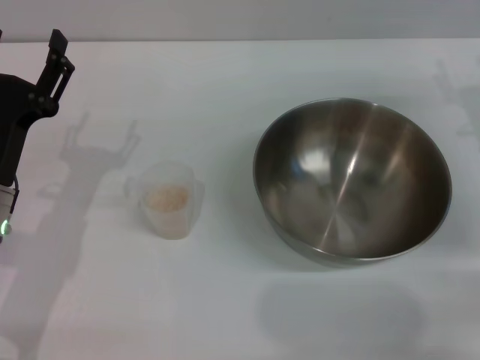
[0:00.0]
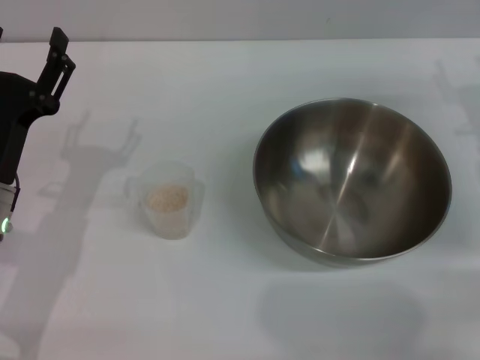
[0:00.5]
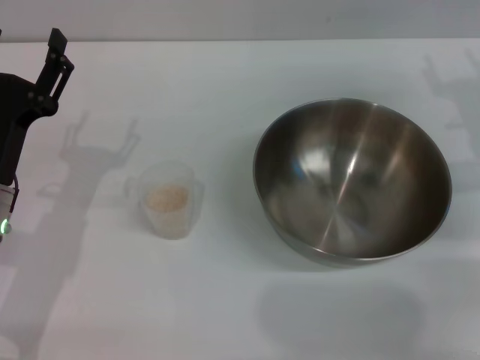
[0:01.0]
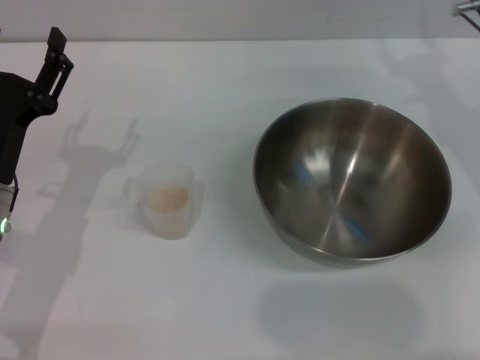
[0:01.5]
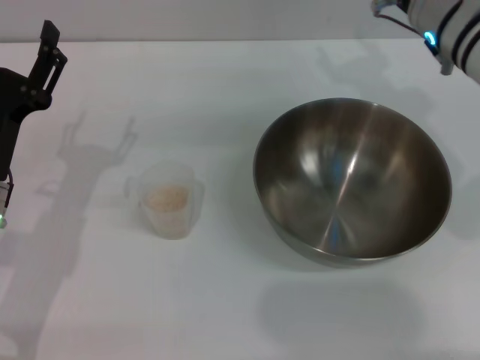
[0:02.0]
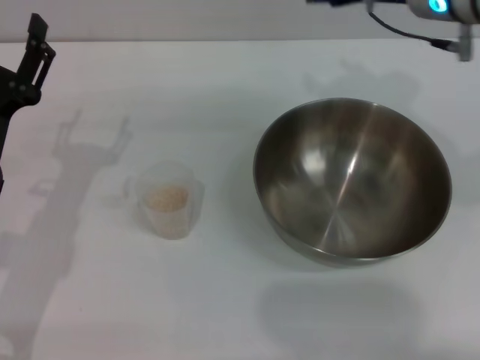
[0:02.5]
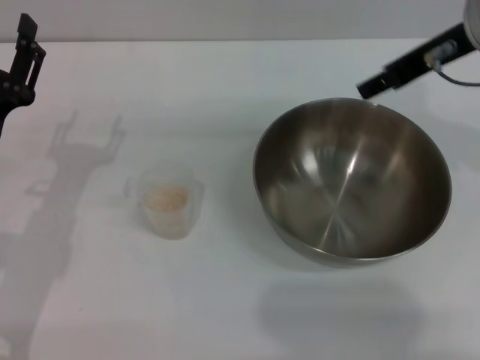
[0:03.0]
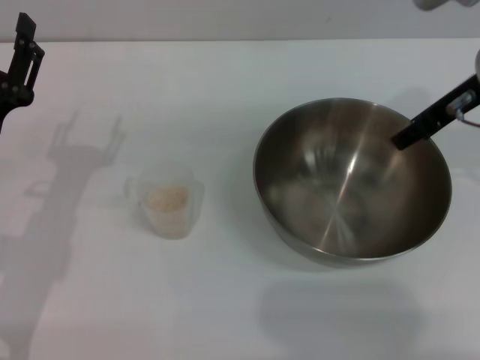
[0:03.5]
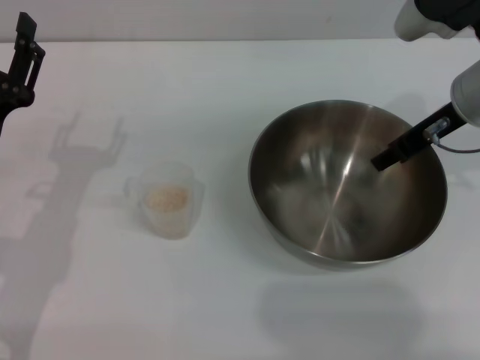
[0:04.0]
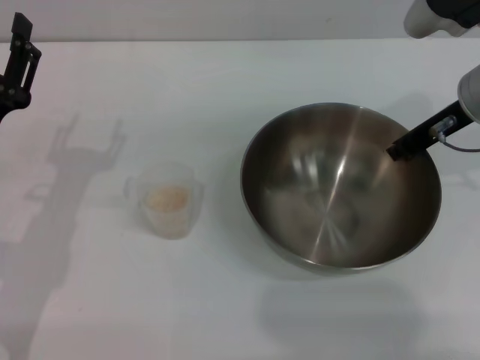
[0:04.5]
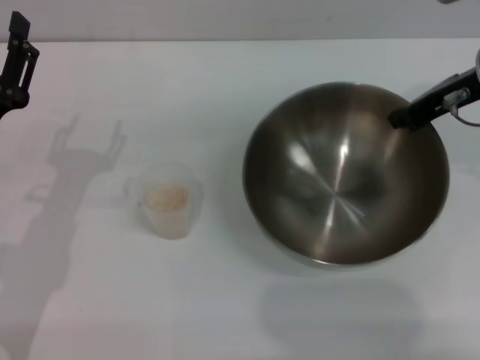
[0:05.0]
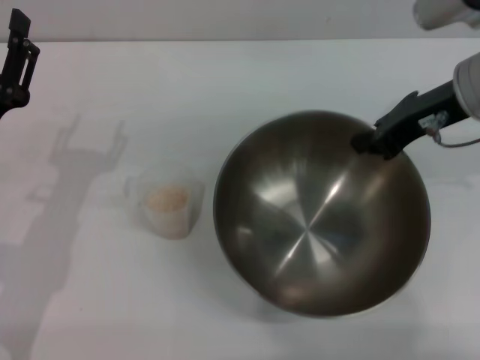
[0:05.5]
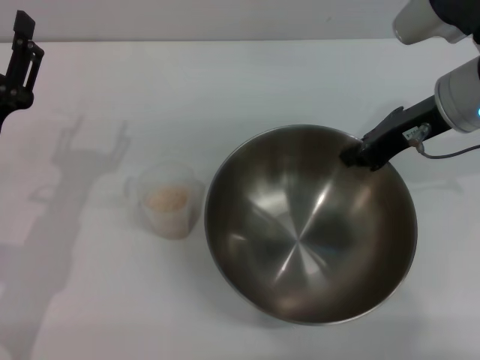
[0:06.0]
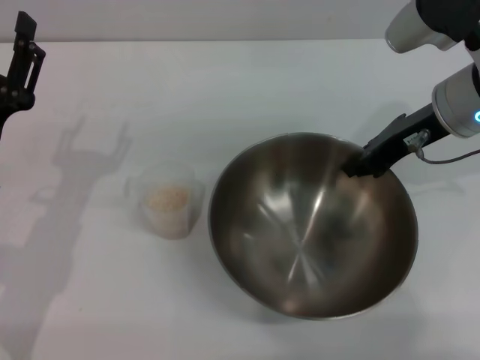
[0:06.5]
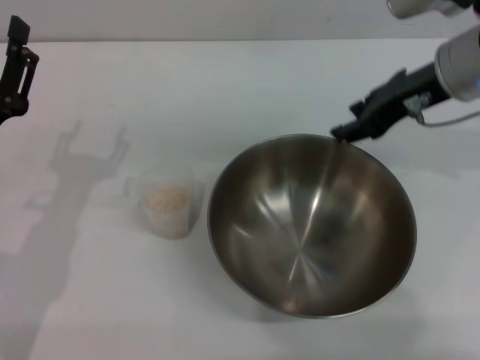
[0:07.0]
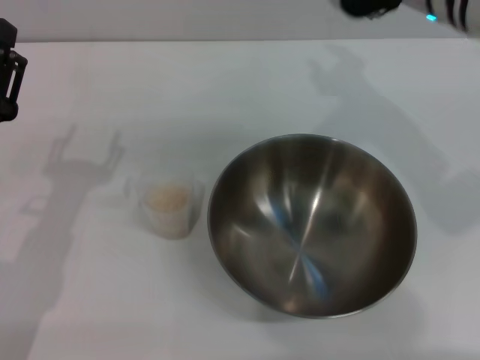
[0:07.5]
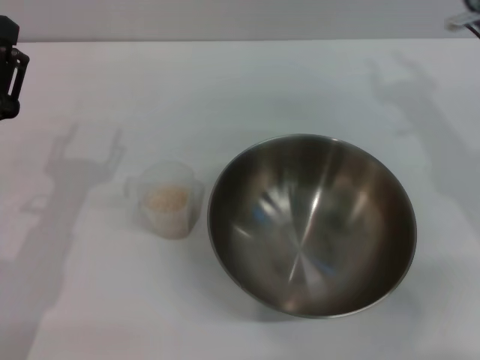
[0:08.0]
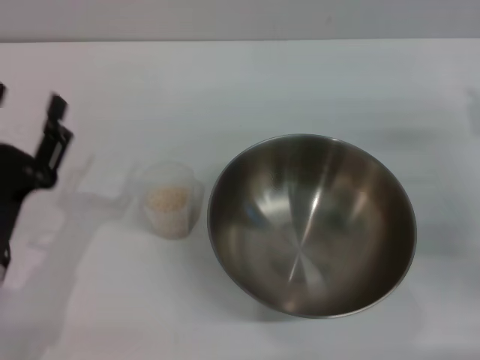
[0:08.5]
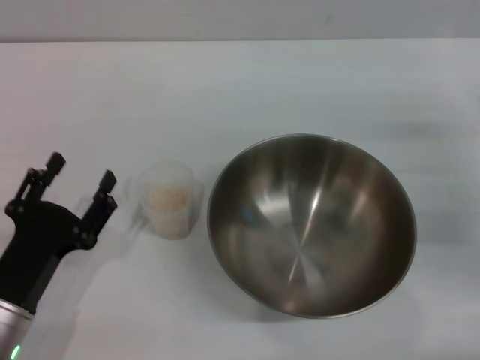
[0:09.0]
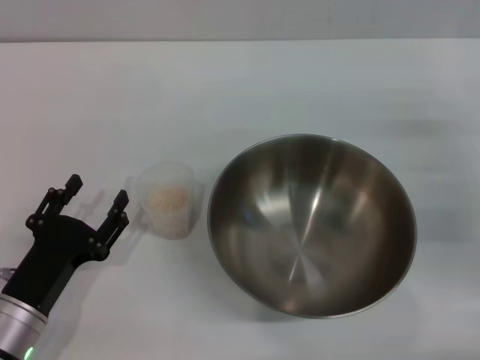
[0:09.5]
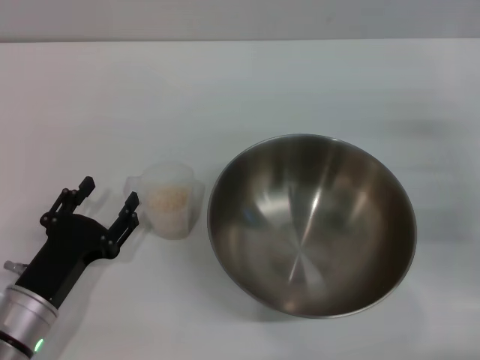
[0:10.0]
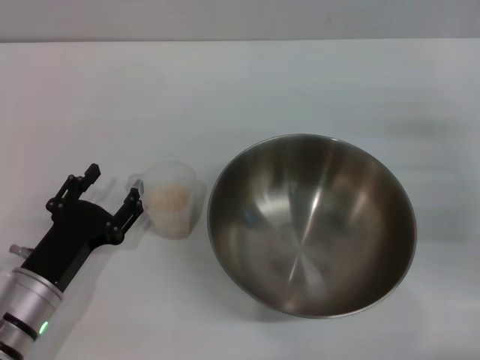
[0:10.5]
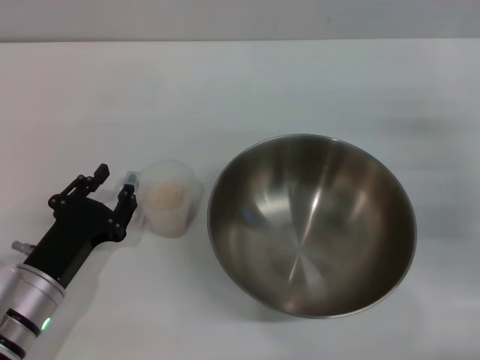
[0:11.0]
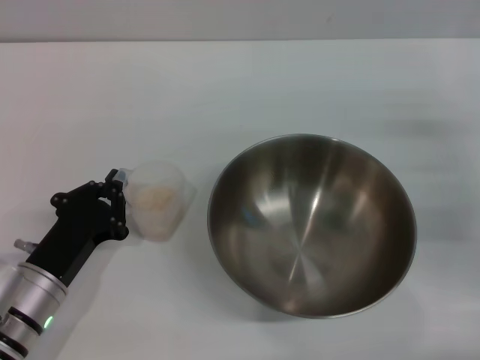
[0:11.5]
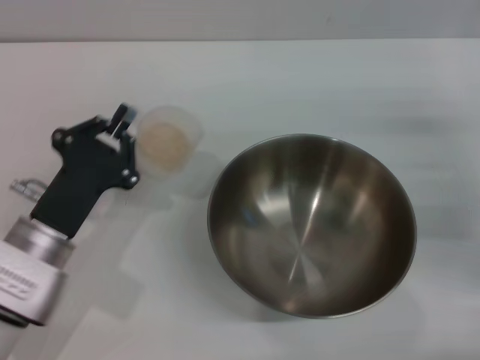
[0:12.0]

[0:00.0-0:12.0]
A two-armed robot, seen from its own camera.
Task of the whole recording: Place the bowl in the middle of the table with one hand and pour the rice from the grain cup into it with the other hand.
Step, 0:00.0 to 0:05.0: Pick up the bowl with the right gripper.
Step, 0:05.5 to 0:07.0: Place the bowl in the center of view with the right gripper.
Step, 0:07.5 to 0:11.5: Pick up the cup with rice in it with the left gripper.
0:00.0 to 0:02.0: The right gripper goes about 15 cm to the left, upward and forward.
0:02.0 to 0:04.0: The right gripper travels upward and back again, about 5 cm each way.
0:04.0 to 0:06.0: The right gripper closes its fingers.
0:06.0 to 0:08.0: The right gripper goes to the left and returns, some 5 cm each way, and opens.
0:08.0 to 0:10.0: The right gripper is displaced to the right and downward by approximately 10 cm. Meanwhile the left gripper moves downward and backward, some 10 cm.
0:10.0 to 0:12.0: The left gripper changes place by approximately 5 cm, and closes.

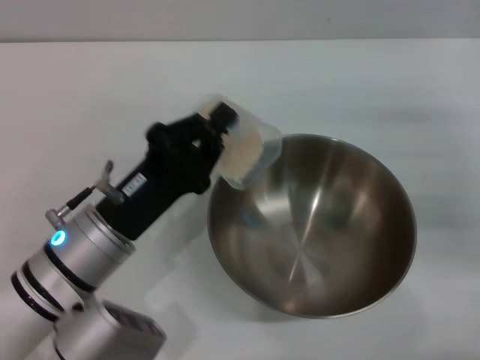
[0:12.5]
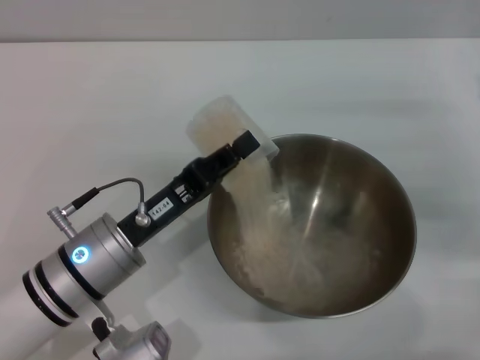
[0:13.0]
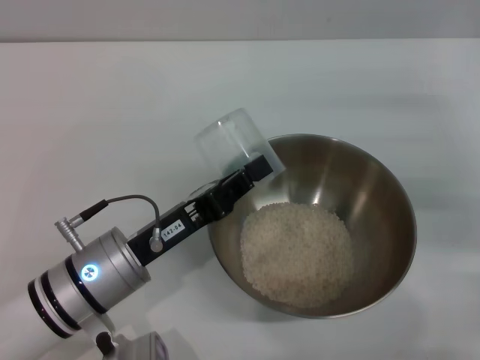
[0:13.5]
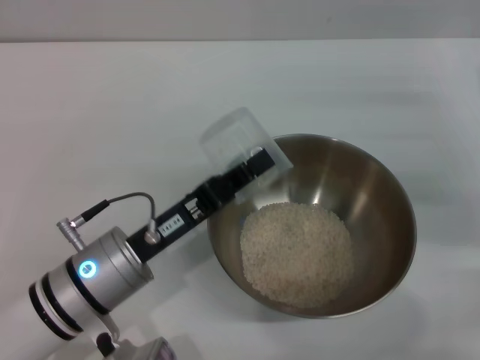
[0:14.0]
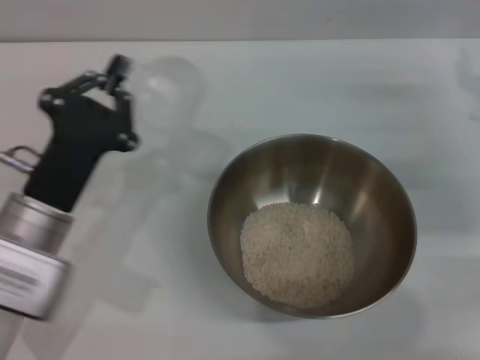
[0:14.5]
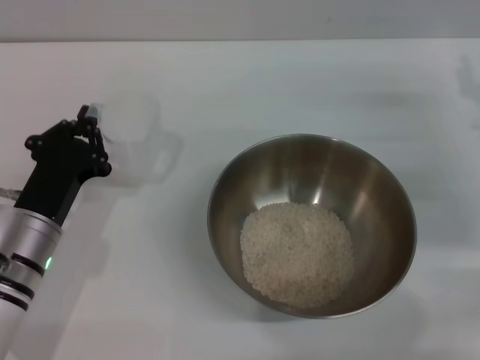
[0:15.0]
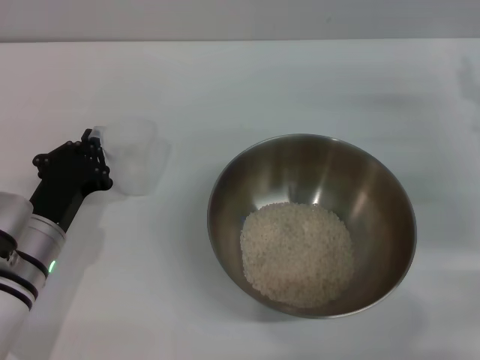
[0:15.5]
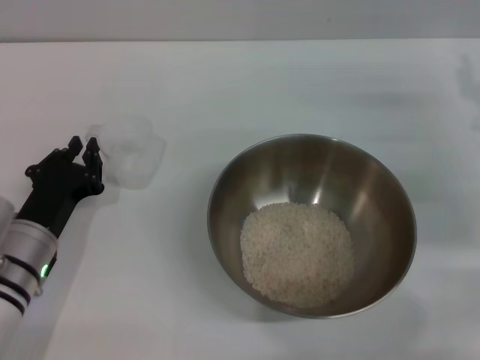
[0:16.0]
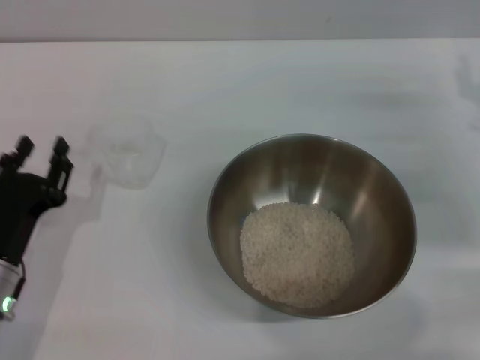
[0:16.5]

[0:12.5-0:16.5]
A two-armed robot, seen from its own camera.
Task of the whole recording: Place the bowl in the middle of the table with one hand and pour the rice from the grain cup into it with the other hand.
Step, 0:12.5 to 0:13.5: Pour the rice from the cup into the bowl with the left gripper.
Step, 0:14.0 to 0:16.0: Place the cup on the table with the left gripper.
0:14.5 to 0:16.5: The left gripper heads to the left and downward, covering some 5 cm.

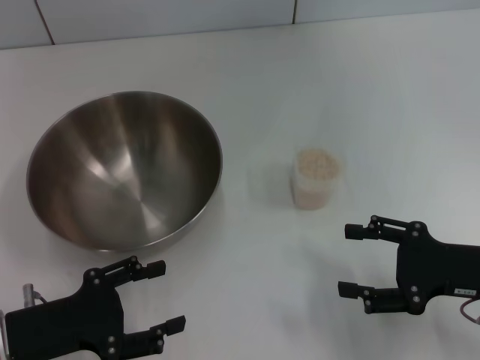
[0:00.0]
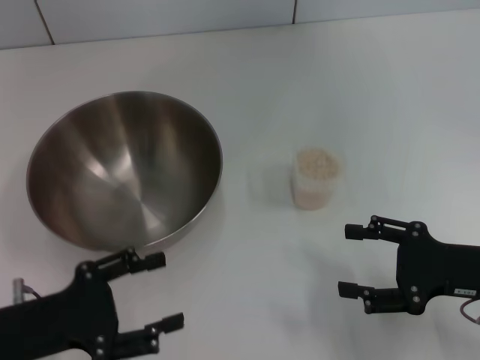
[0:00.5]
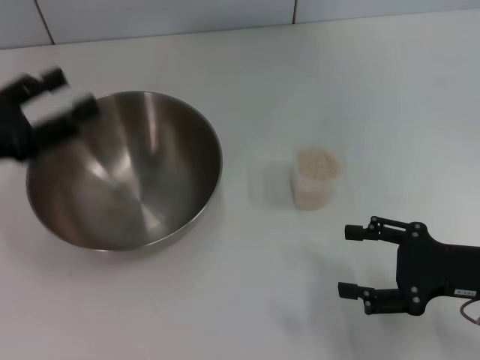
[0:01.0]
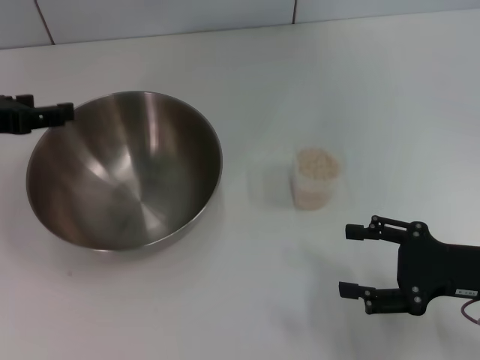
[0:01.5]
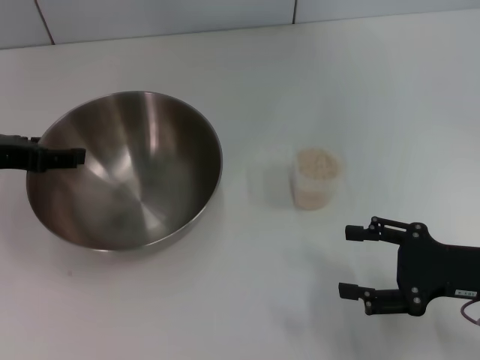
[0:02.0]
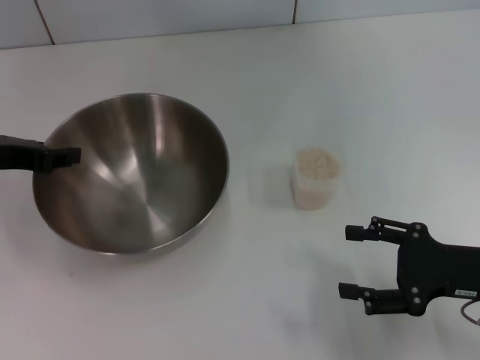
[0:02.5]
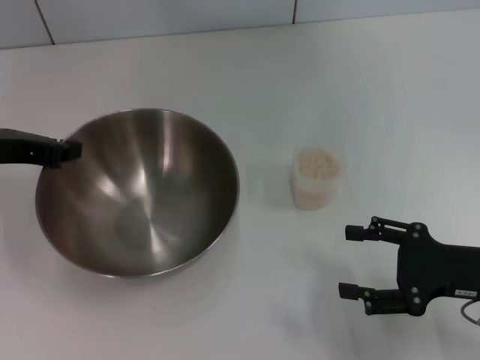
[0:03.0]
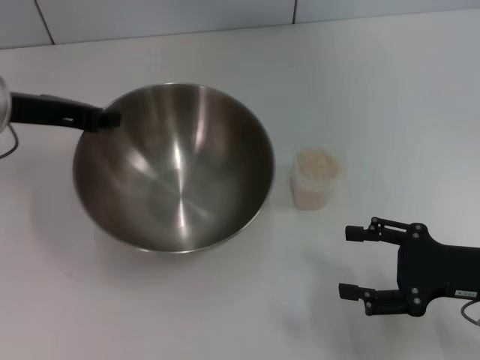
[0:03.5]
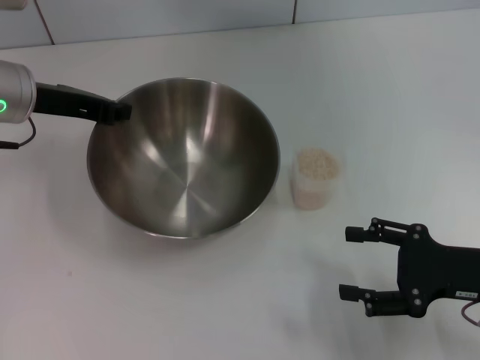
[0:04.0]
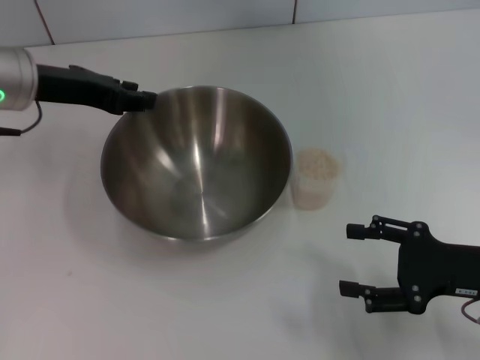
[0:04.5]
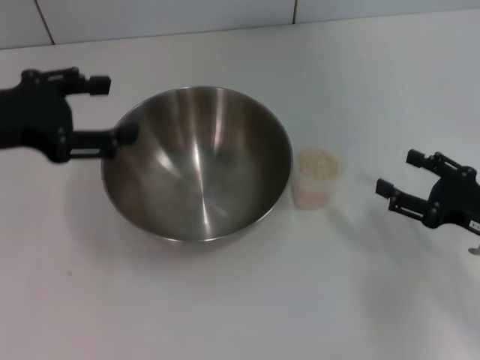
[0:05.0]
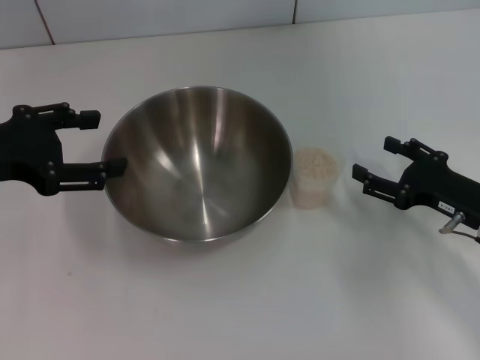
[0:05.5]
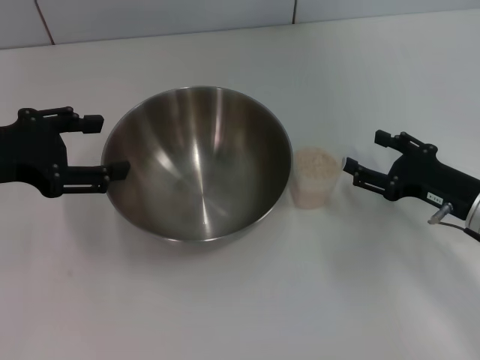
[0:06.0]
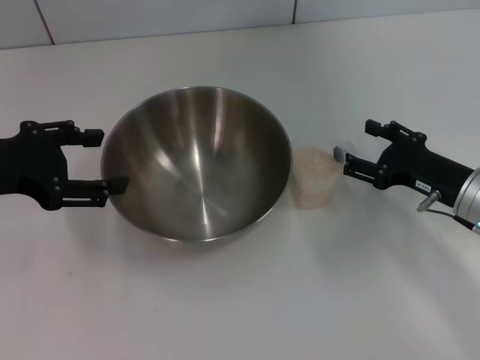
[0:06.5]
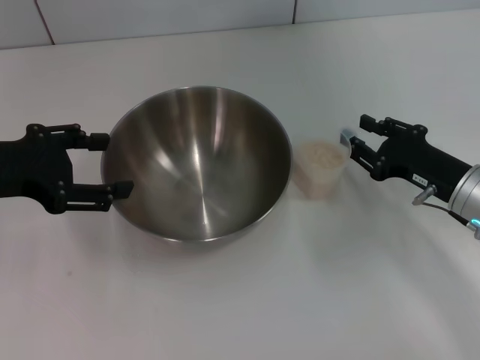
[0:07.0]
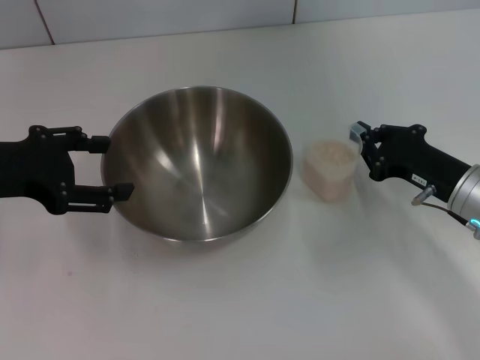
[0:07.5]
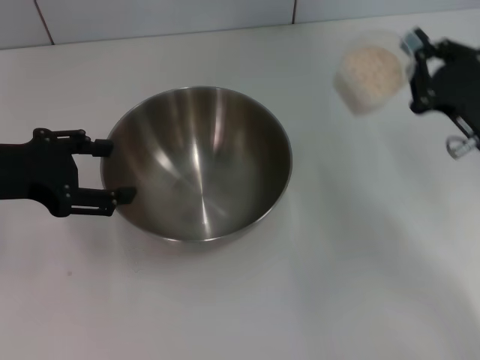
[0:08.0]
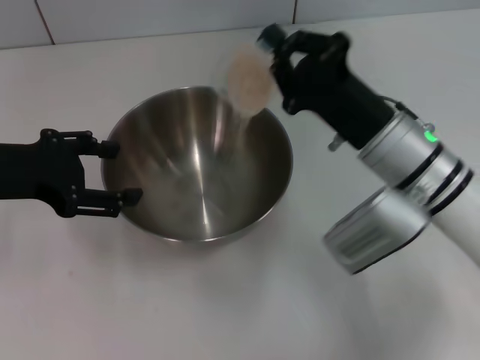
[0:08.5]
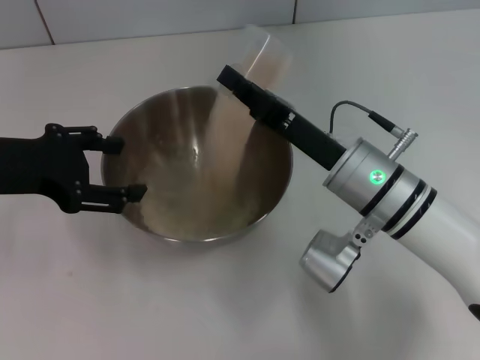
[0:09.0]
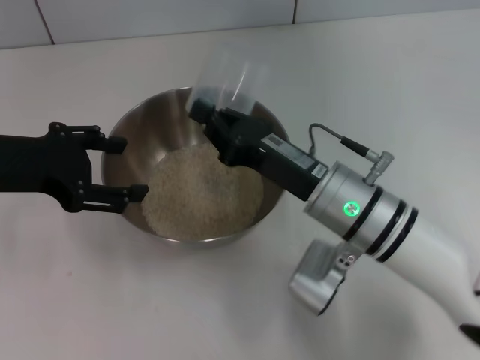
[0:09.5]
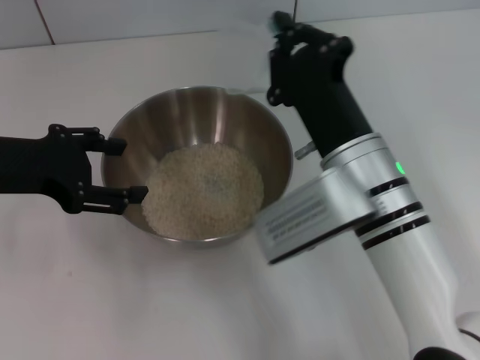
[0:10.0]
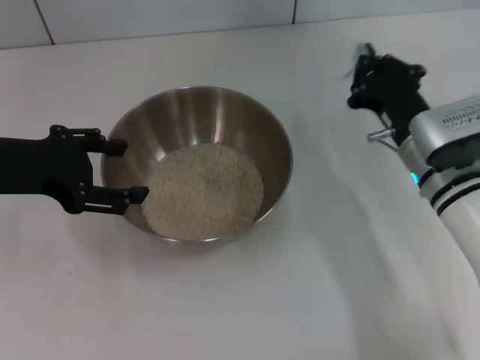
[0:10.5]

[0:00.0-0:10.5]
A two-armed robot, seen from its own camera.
Task of the whole recording: Place the bowl in the middle of the table with one hand and pour the rice from the grain cup into it with the other hand.
Step, 0:00.0 to 0:03.0: Pick up the bowl with the left gripper.
Step, 0:03.5 to 0:04.5: Place the bowl in the center of view with the left gripper.
Step, 0:05.0 to 0:07.5: Pick up the cup with rice in it with the right gripper.
Step, 0:08.0 to 0:10.0: Pour the rice from the cup into the bowl with the right gripper.
0:00.0 to 0:02.0: The left gripper shifts approximately 20 cm forward and upward.
0:02.0 to 0:04.0: The left gripper goes some 10 cm to the right and forward, and closes.
0:04.0 to 0:06.5: The left gripper travels backward and to the left by approximately 10 cm, and opens. Meanwhile the right gripper shifts some 10 cm forward.
0:06.5 to 0:08.5: The right gripper goes some 10 cm to the left and upward, and closes its fingers.
0:08.5 to 0:10.5: The right gripper moves some 5 cm.
